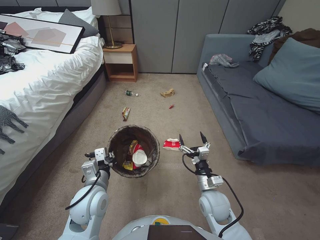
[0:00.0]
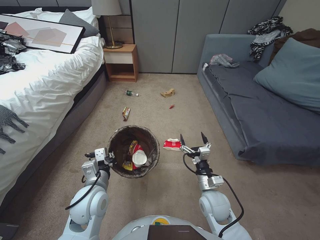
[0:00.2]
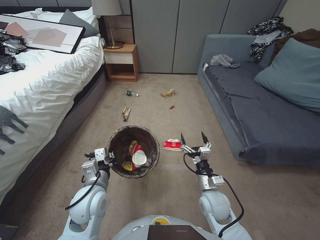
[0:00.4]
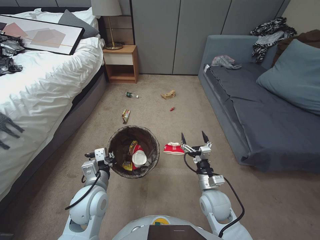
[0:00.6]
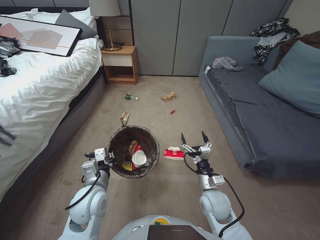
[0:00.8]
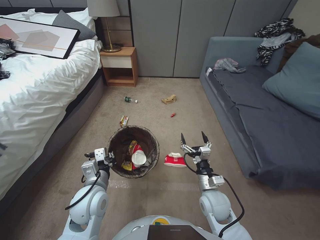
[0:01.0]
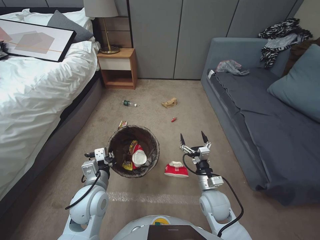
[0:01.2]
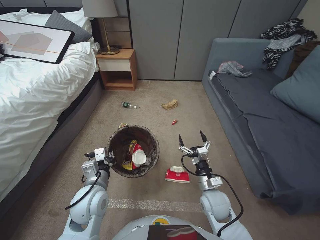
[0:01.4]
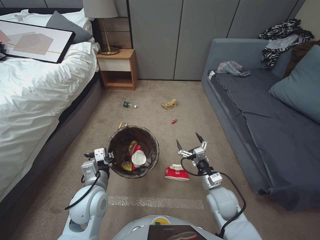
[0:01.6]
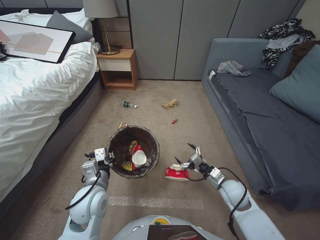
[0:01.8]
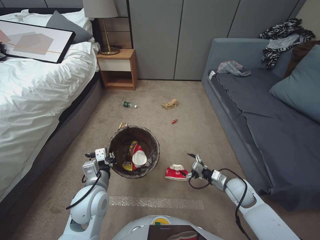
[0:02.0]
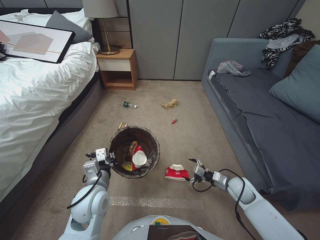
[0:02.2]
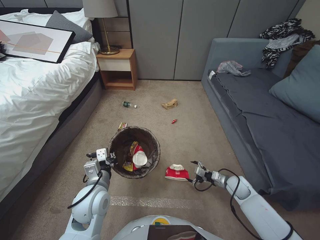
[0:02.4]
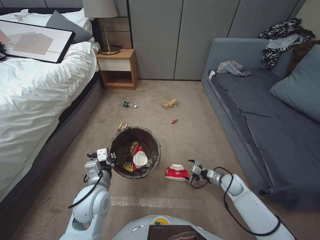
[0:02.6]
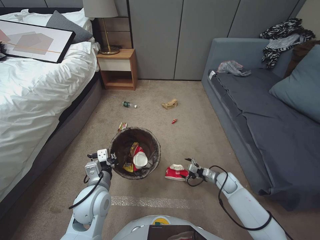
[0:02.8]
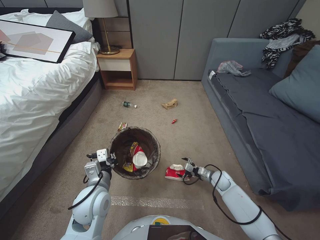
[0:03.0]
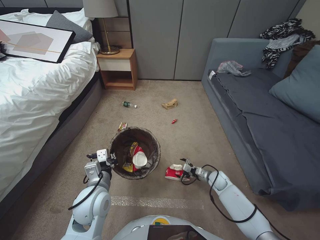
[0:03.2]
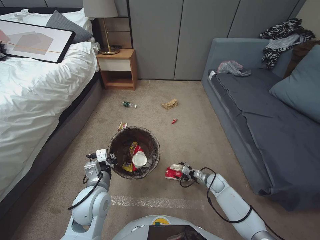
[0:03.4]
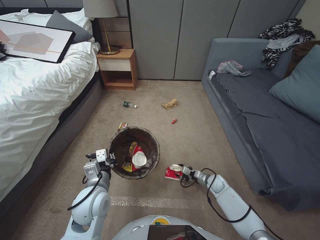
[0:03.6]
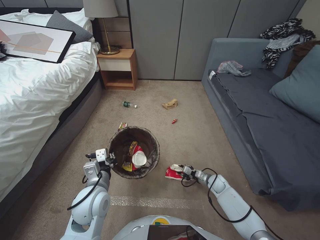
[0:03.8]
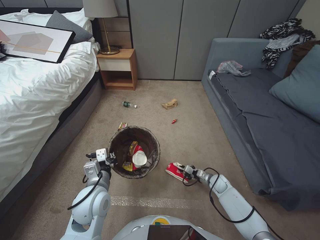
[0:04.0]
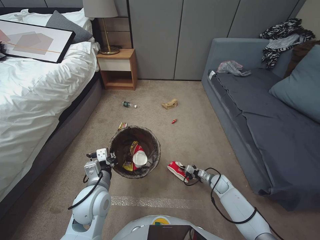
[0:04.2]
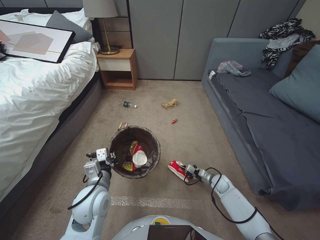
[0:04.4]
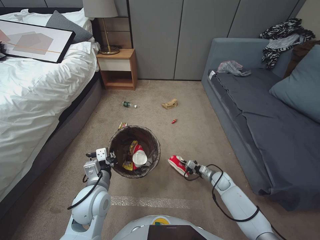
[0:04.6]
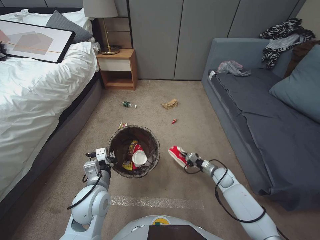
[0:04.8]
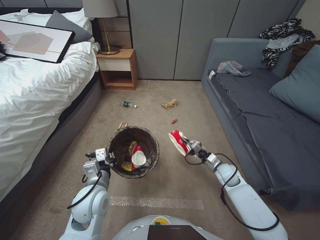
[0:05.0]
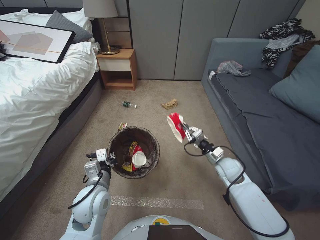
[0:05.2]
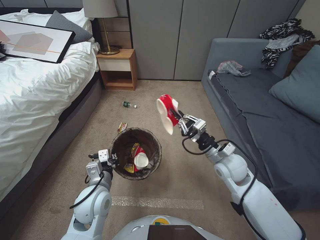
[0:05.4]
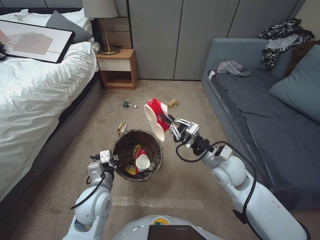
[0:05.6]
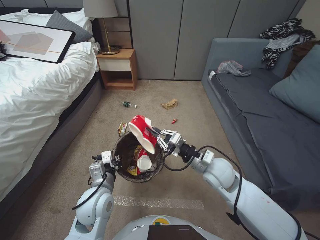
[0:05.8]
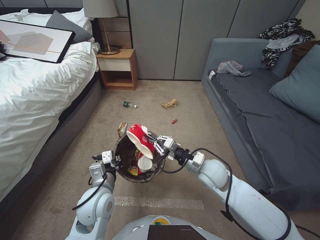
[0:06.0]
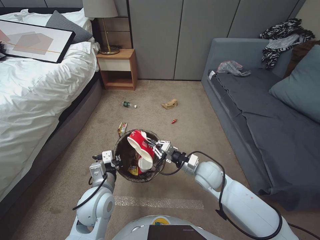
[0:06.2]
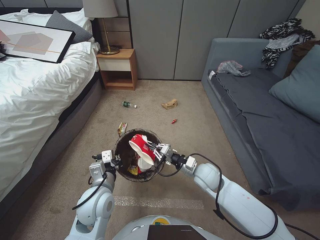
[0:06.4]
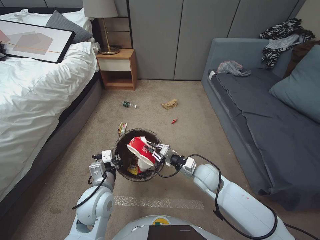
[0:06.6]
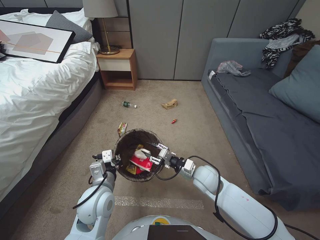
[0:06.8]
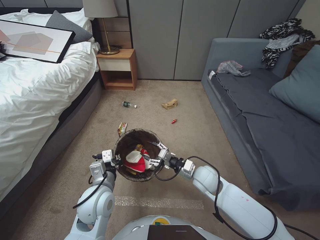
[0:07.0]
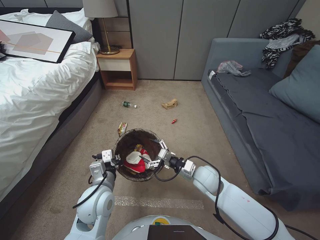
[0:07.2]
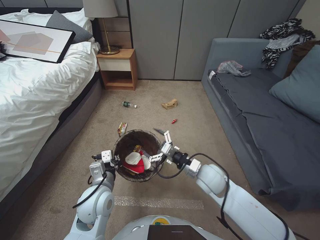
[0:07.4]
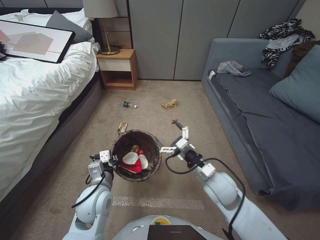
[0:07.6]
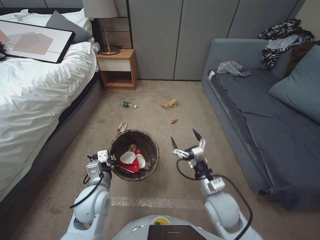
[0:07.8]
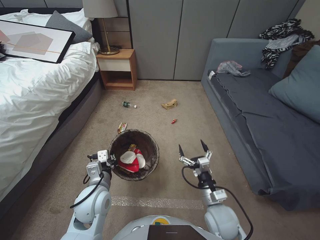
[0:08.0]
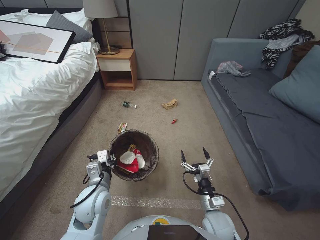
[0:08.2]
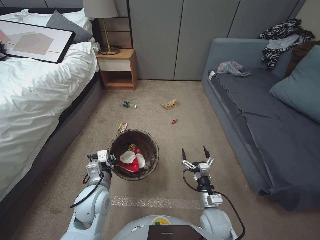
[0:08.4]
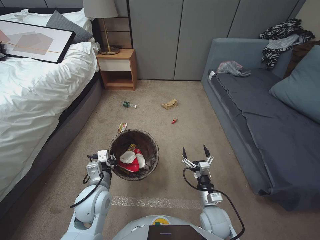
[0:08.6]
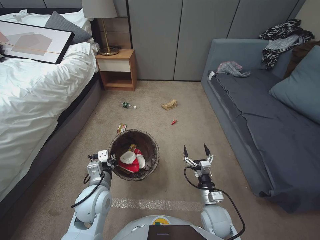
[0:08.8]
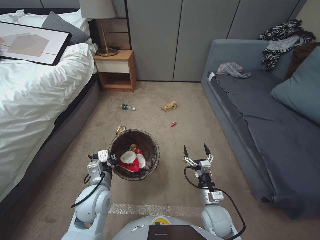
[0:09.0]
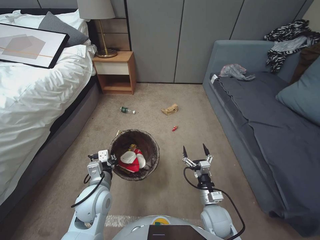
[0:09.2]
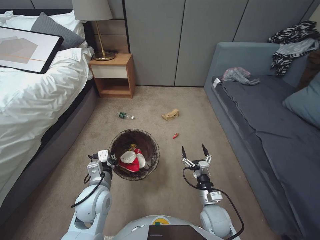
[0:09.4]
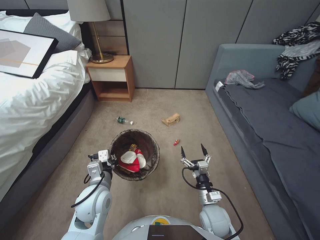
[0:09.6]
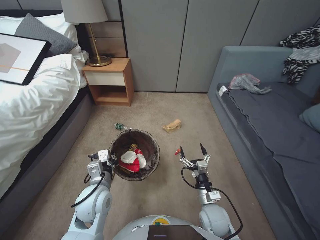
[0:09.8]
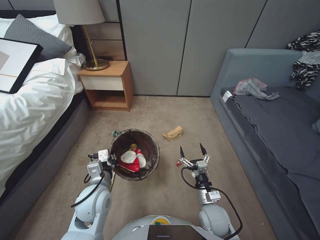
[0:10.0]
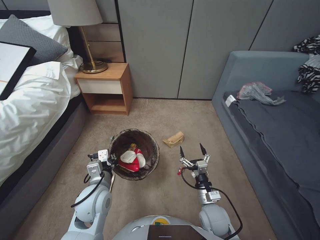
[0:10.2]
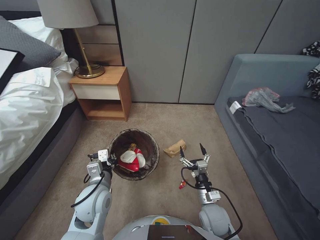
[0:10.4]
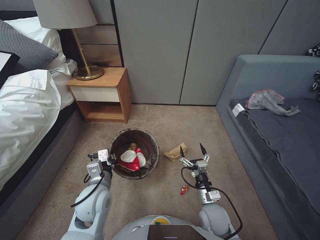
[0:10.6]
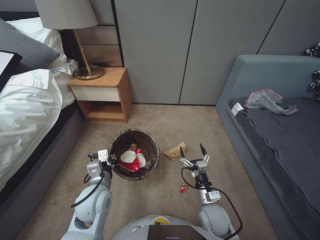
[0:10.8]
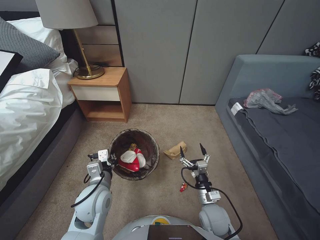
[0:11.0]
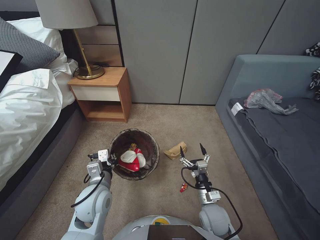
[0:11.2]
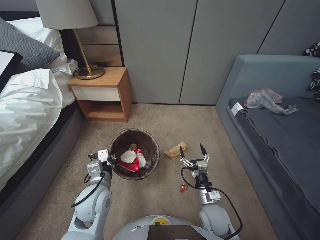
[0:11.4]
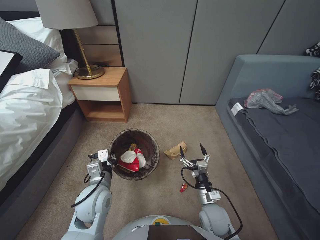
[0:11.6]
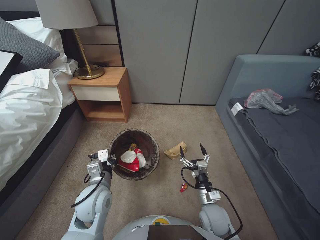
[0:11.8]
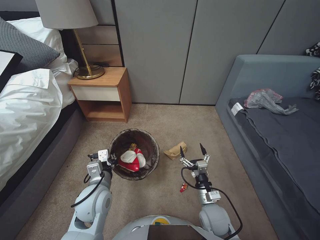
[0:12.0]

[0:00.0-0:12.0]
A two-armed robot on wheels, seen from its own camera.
Task of the whole recording: Pick up the trash bin, then pick up the garbage from the floor and place it into the trash bin.
0:01.6 to 0:03.0: The right gripper is displaced to the right, downward and forward by approximately 20 cm.
0:03.0 to 0:04.4: The right gripper closes up.
0:04.4 to 0:06.0: The right gripper moves upward and to the left, approximately 30 cm.
0:06.0 to 0:07.6: The right gripper opens.
0:07.6 to 0:09.0: The right gripper goes about 15 cm downward and backward.
0:10.4 to 0:12.0: The two grippers keep their place.

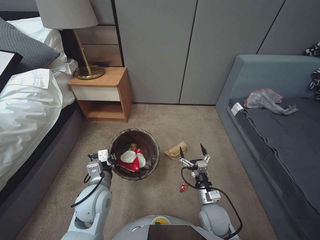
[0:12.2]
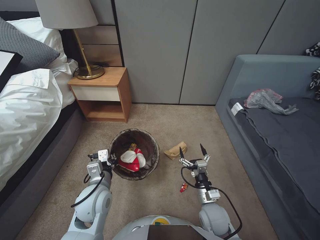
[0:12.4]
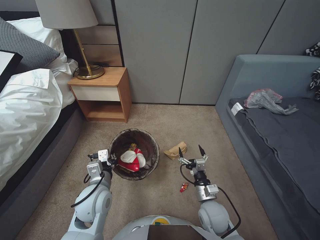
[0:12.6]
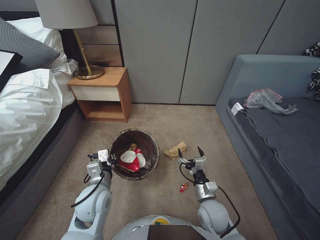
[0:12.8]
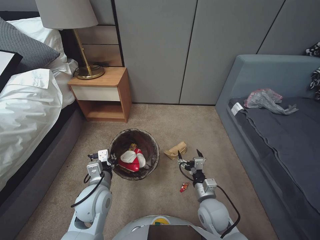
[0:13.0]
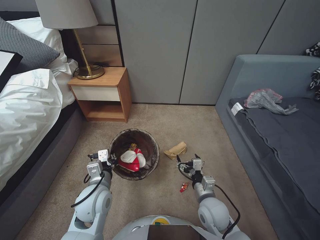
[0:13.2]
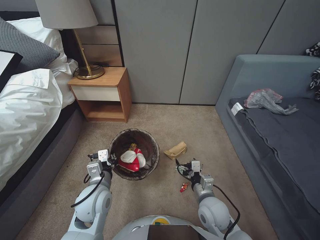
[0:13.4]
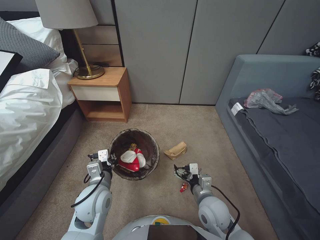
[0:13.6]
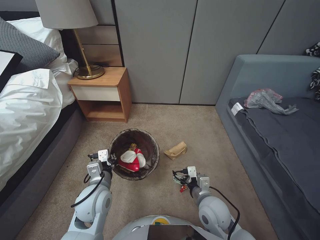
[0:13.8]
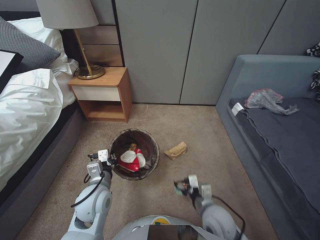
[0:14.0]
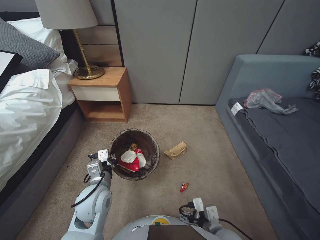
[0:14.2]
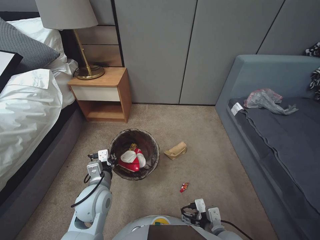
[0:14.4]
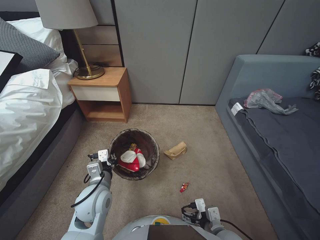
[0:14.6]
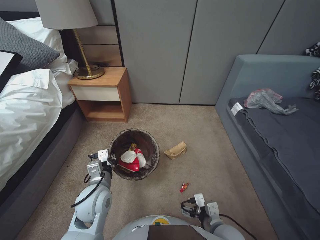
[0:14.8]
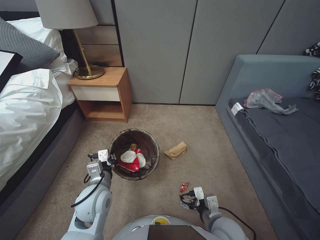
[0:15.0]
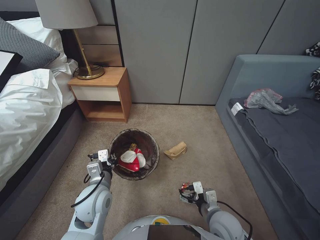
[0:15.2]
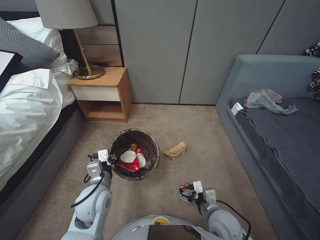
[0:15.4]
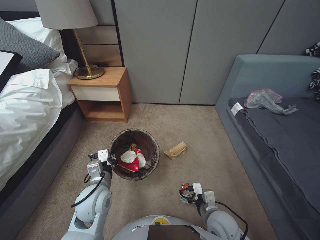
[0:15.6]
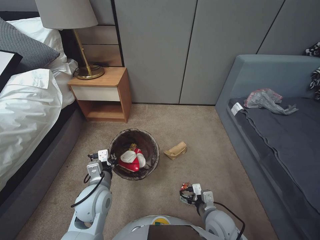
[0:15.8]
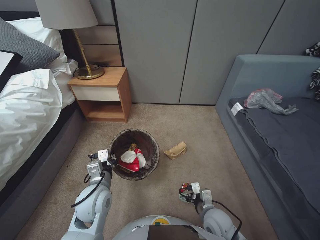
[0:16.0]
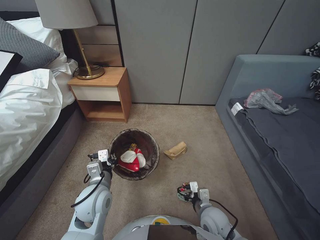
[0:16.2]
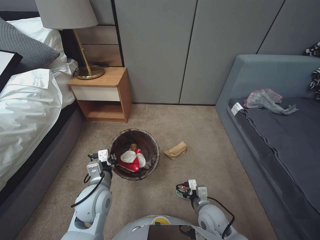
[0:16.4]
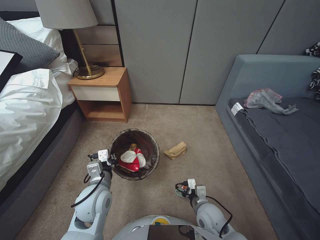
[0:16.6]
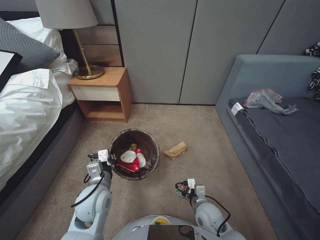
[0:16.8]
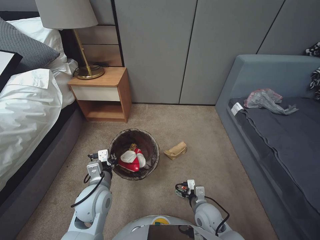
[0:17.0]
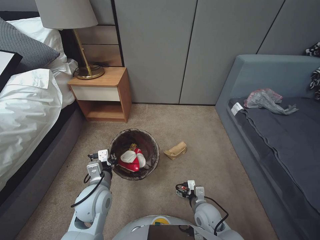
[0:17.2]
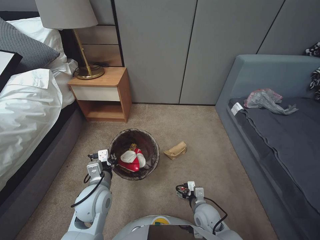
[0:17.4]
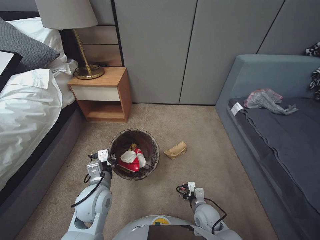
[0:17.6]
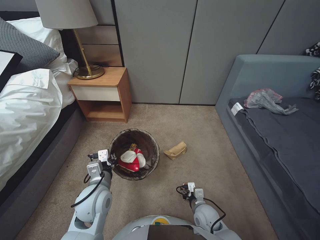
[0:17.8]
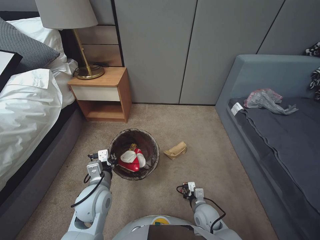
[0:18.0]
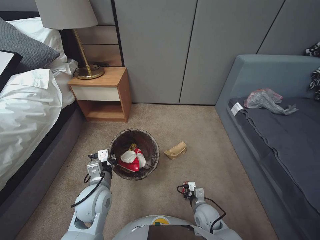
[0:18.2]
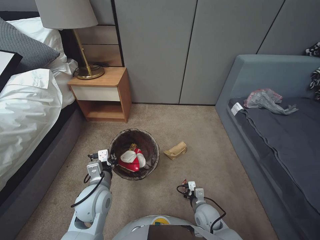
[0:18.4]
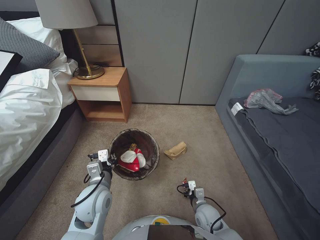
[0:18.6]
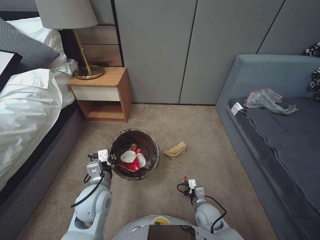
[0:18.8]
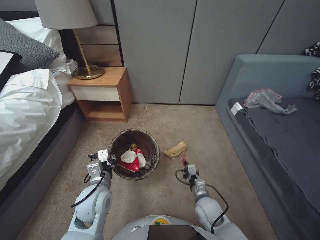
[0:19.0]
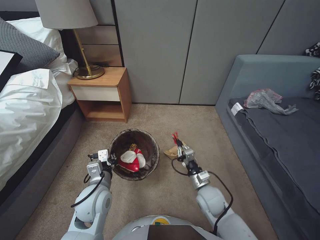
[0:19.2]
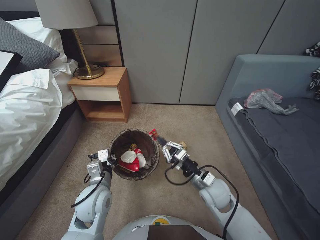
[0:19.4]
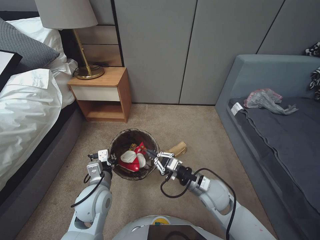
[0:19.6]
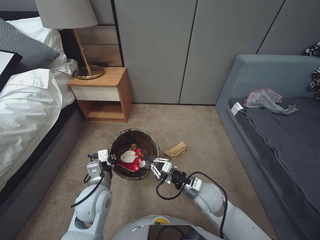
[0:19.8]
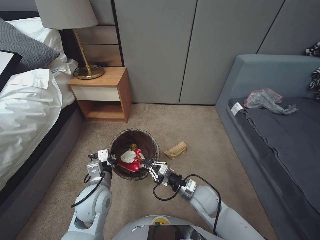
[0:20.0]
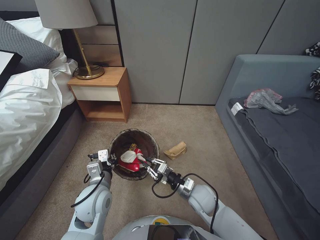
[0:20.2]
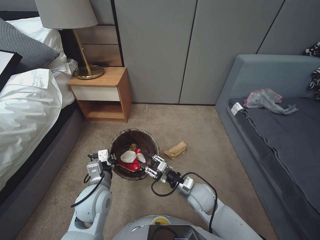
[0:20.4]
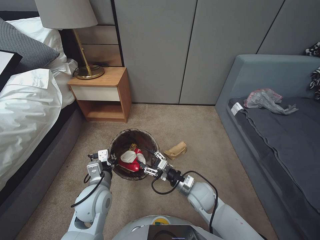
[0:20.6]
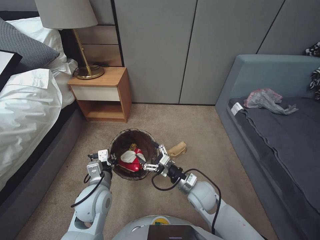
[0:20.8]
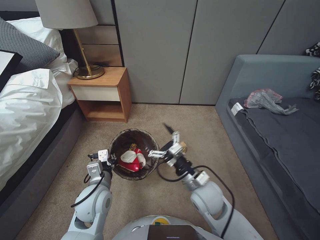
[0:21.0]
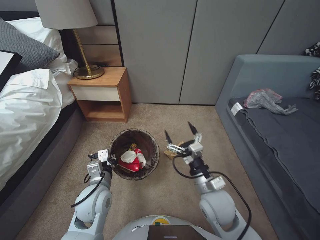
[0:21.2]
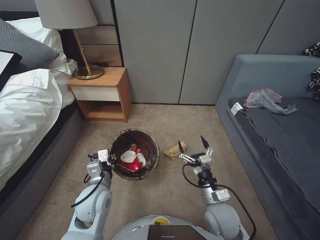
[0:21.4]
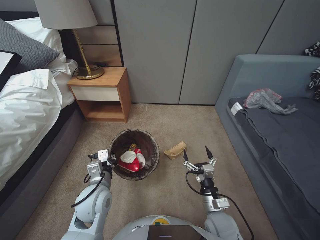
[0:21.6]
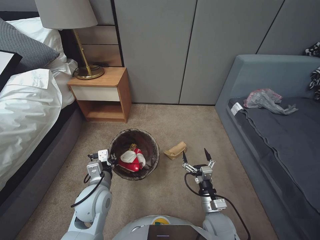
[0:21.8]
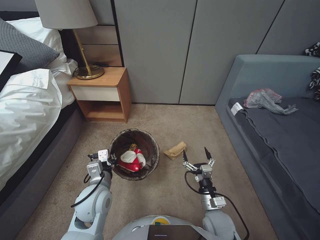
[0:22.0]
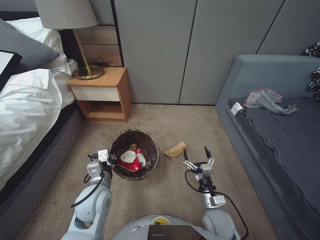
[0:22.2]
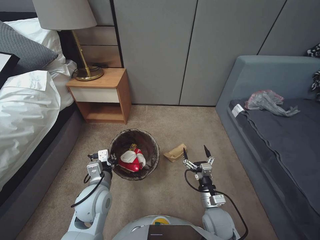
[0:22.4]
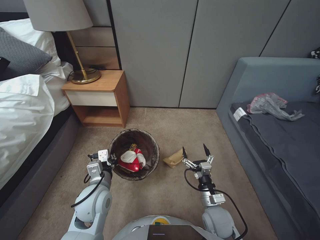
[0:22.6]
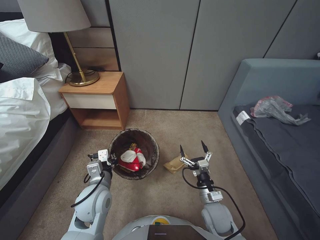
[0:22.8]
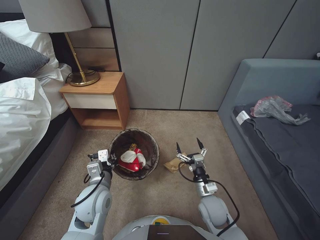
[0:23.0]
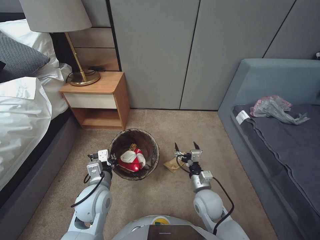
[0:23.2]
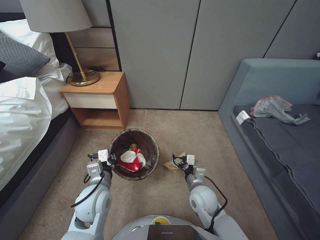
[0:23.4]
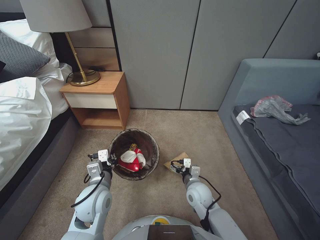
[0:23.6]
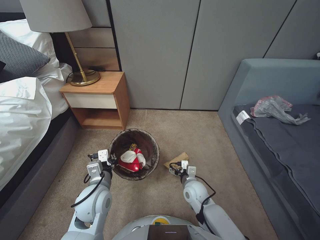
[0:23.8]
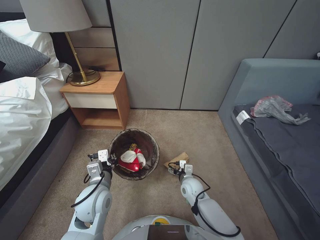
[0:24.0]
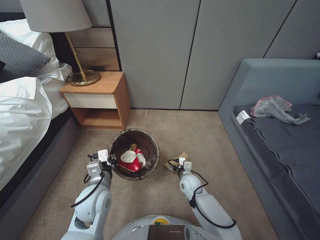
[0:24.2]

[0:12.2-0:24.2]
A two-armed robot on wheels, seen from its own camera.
Task of the whole recording: Pick up the trash bin, then pick up the garbage from the floor and place it into the trash bin.
0:12.2 to 0:13.8: The right gripper heads upward, covering some 5 cm.
0:13.8 to 0:15.2: The right gripper is displaced backward by about 5 cm.
0:15.2 to 0:16.6: The right gripper is displaced downward by approximately 5 cm.
0:16.6 to 0:18.2: The right gripper shifts roughly 5 cm downward, and closes up.
0:18.2 to 0:19.8: The right gripper shifts approximately 15 cm upward.
0:19.8 to 0:21.2: The right gripper shifts by approximately 5 cm, and opens.
0:21.2 to 0:22.6: The right gripper moves downward and to the right, approximately 15 cm.
0:22.6 to 0:24.2: The right gripper goes roughly 15 cm forward, downward and to the left.
